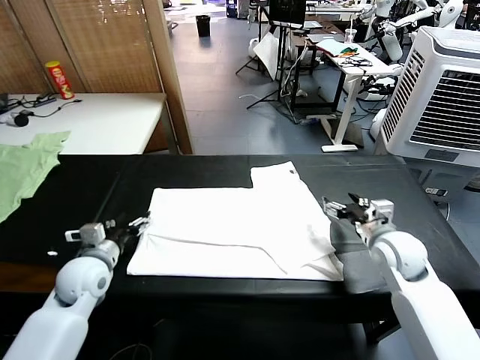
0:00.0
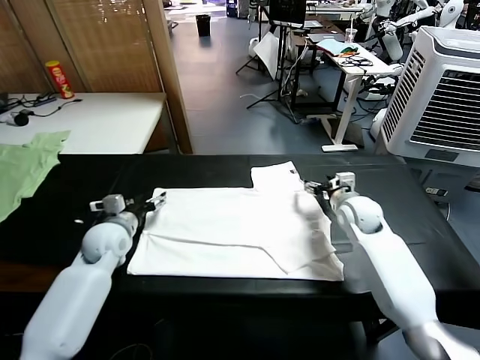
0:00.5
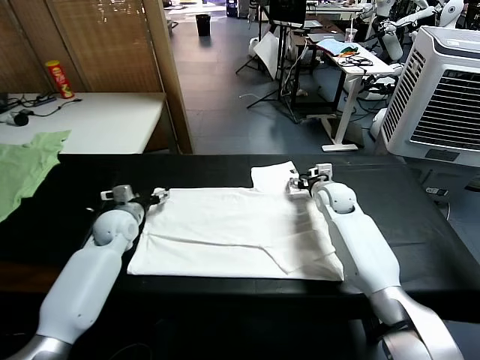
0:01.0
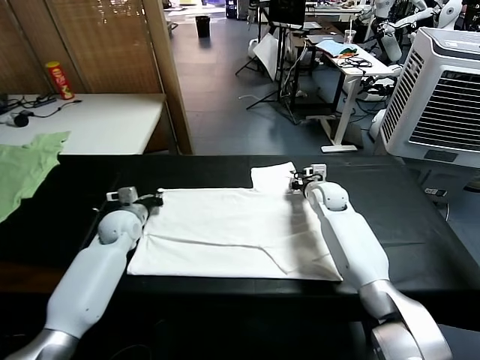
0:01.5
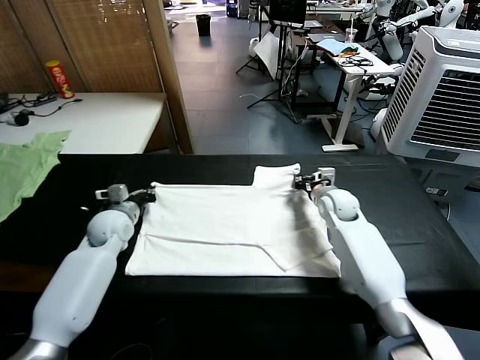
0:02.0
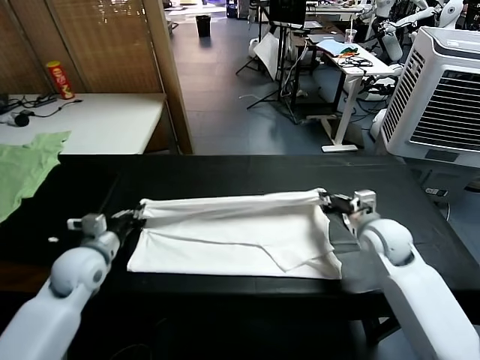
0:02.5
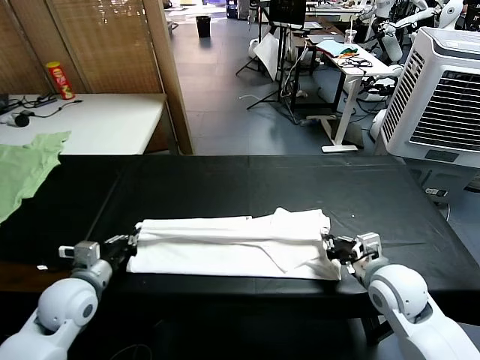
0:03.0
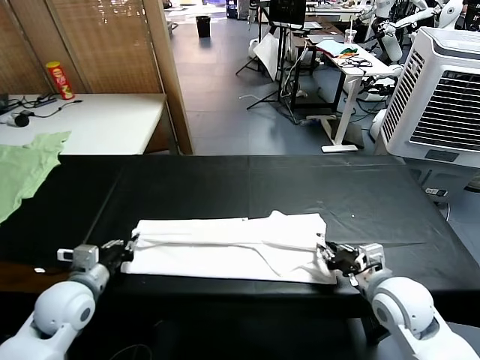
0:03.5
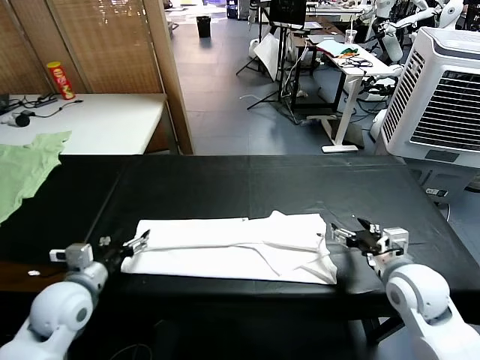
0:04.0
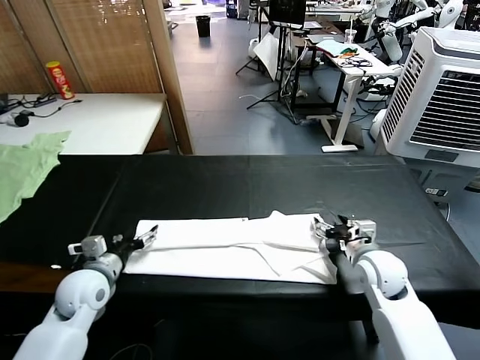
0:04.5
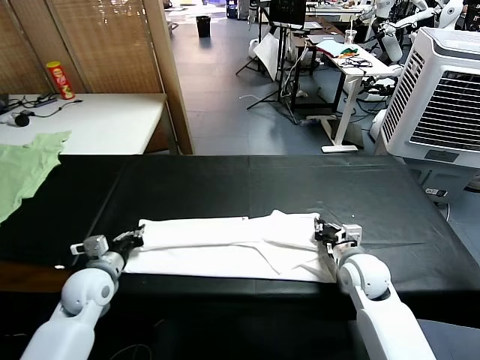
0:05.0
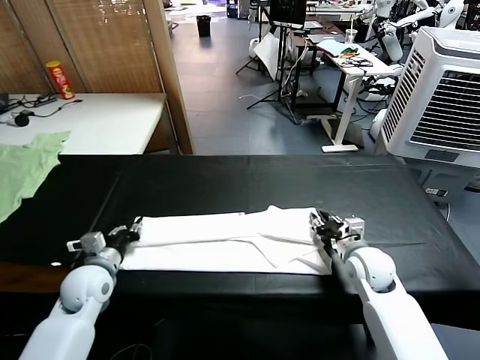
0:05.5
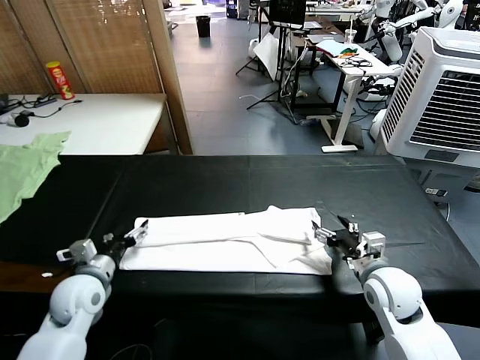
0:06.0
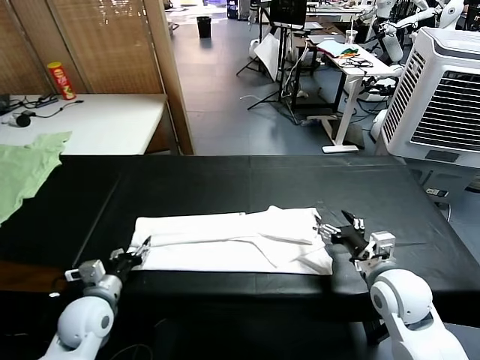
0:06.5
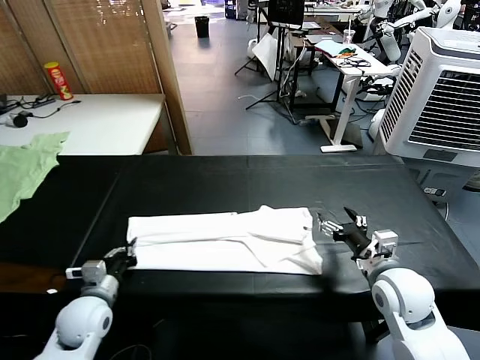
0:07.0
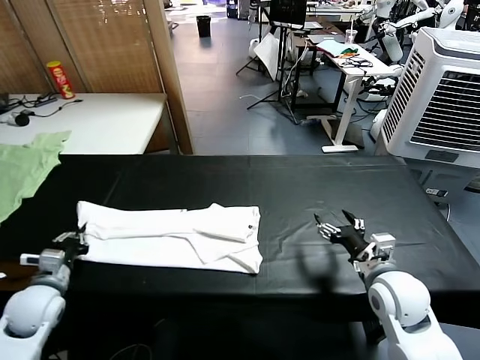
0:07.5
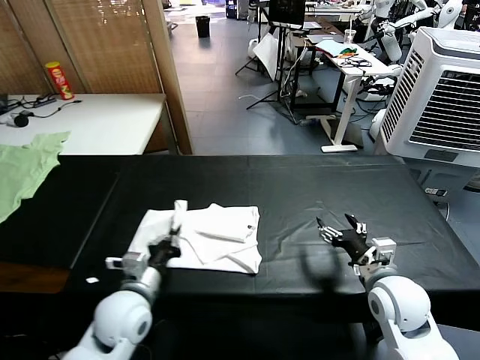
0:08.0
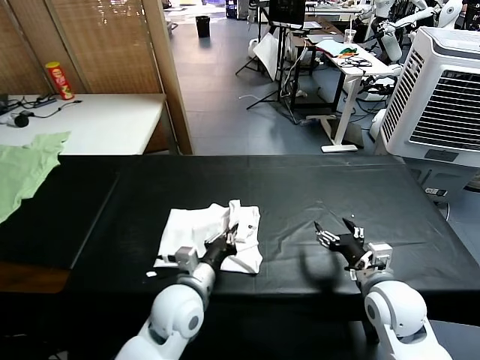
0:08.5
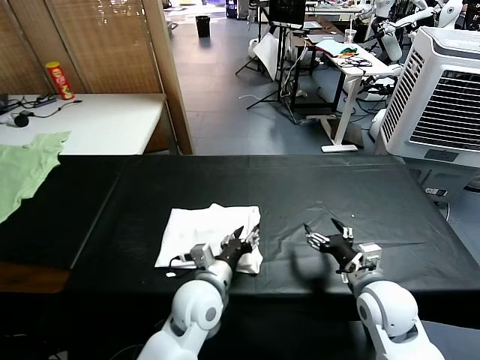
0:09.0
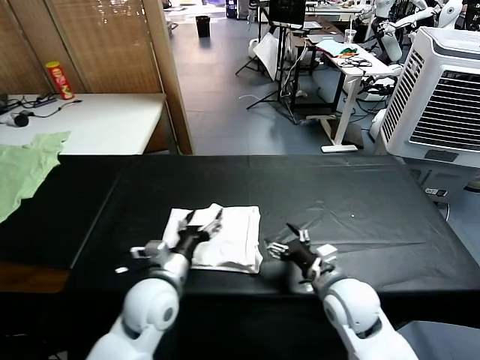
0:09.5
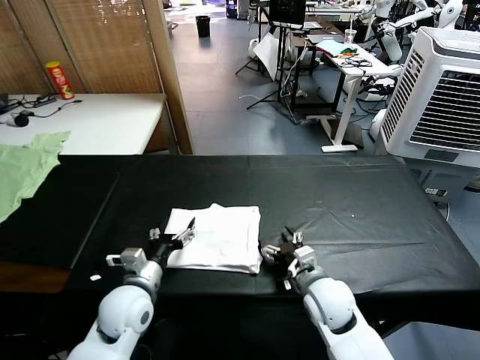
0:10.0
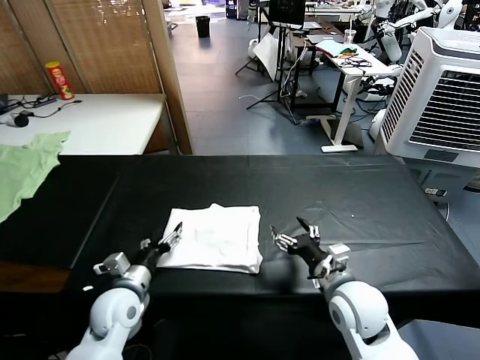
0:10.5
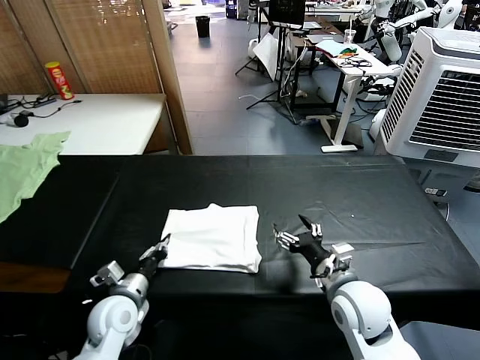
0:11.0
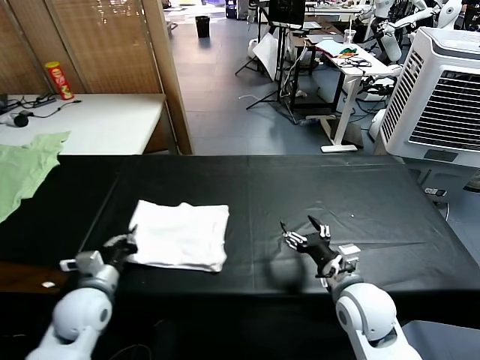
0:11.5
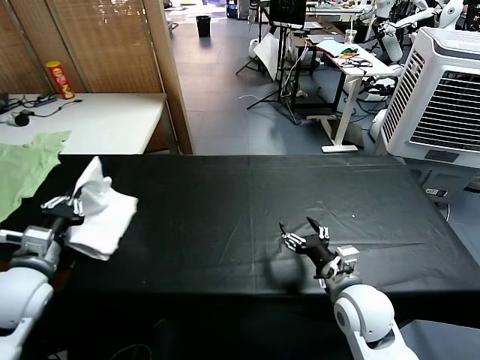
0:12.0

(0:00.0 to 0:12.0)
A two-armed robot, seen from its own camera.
Task of the whole recording: fold and organize the clothes.
Step, 0:02.0 - 0:03.5: use both grippers to drag the upper edge of the fabric backward and fold it over the lower edge.
Step, 0:04.0 - 0:06.5: use the left gripper to clamp the left edge of the fabric.
Step, 0:07.0 - 0:09.0: use the left gripper to drag the left edge of the fabric to the left and folds it over the right edge.
0:00.0 - 0:02.0: Both grippers travel together forward, roughly 10 cm. The right gripper closes up, while the left gripper closes up.
0:02.0 - 0:04.0: Both grippers travel together backward, some 20 cm. The left gripper opens its fingers; the right gripper opens up.
0:04.0 - 0:06.0: The left gripper moves roughly 5 cm, and closes, then reopens. Meanwhile the right gripper closes, then reopens.
0:06.0 - 0:08.0: The left gripper shifts roughly 10 cm to the right, and closes its fingers.
0:08.0 - 0:10.0: The left gripper travels to the right and back again, roughly 15 cm each way, and opens up; the right gripper is displaced to the left and downward by some 15 cm.
0:10.0 - 0:12.0: The left gripper travels to the left and upward by some 20 cm, and closes its fingers; the right gripper shifts by approximately 5 cm.

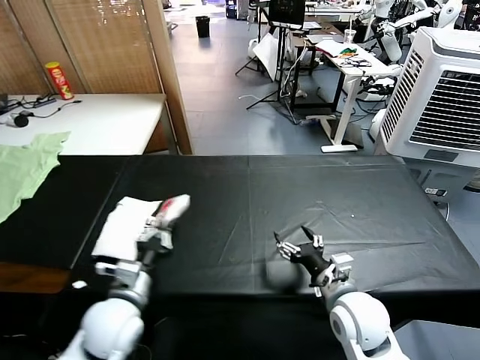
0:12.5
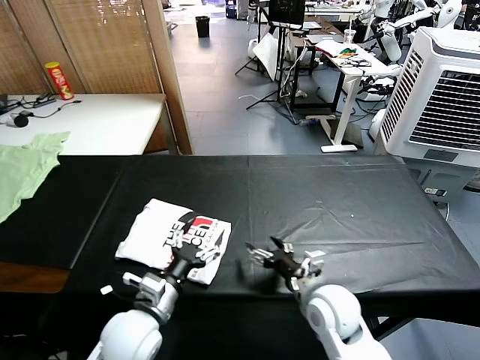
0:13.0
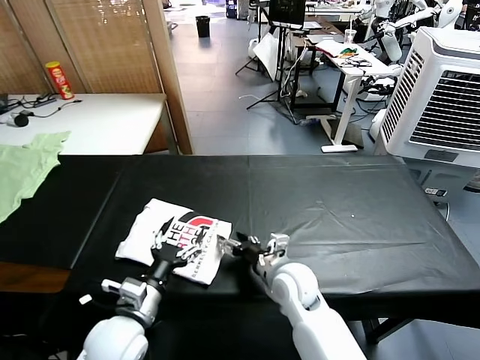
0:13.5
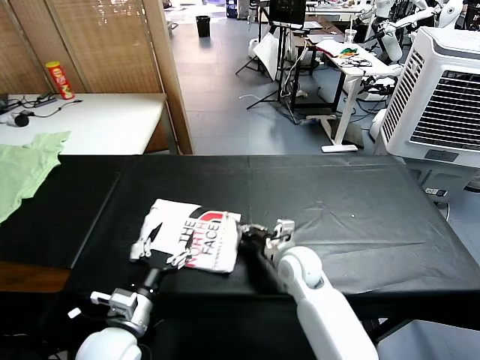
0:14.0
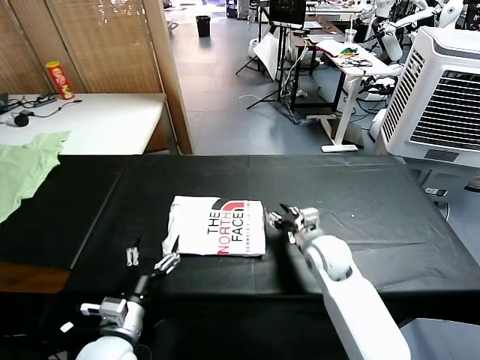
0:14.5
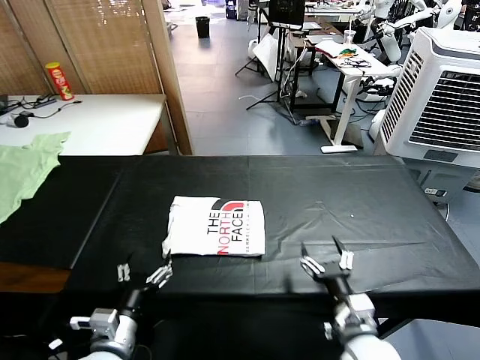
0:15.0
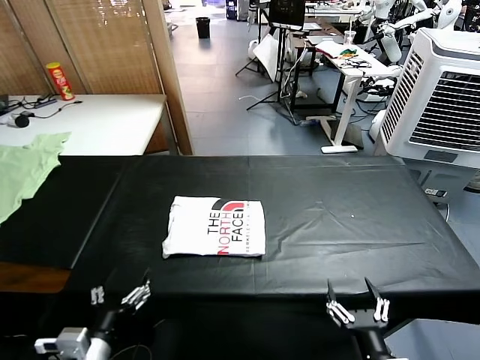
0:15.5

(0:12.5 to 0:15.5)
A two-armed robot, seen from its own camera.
Task of the whole recording: fold and organize the clothes.
Step, 0:13.0 - 0:14.0: Drag the clothes to the center of the table.
0:12.5 - 0:14.0: The left gripper opens up. Meanwhile the right gripper goes roughly 15 cm forward and to the left, and closes up.
0:14.0 - 0:15.5: The left gripper goes approximately 10 cm backward, while the right gripper heads backward, covering approximately 30 cm, and opens its fingers.
